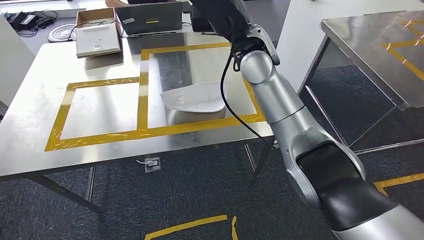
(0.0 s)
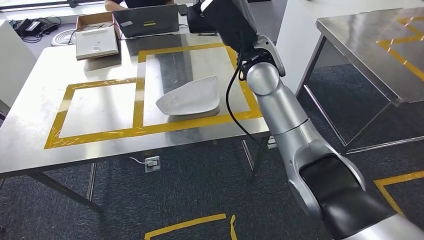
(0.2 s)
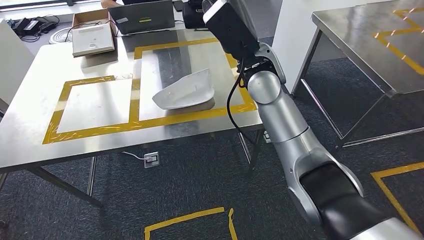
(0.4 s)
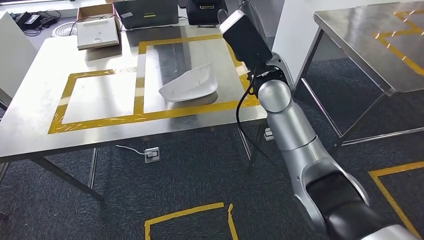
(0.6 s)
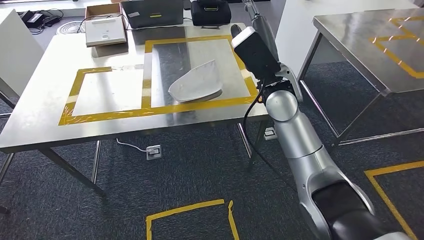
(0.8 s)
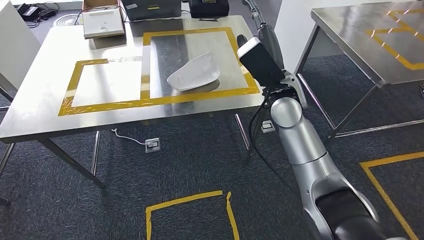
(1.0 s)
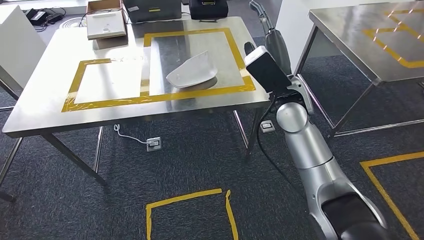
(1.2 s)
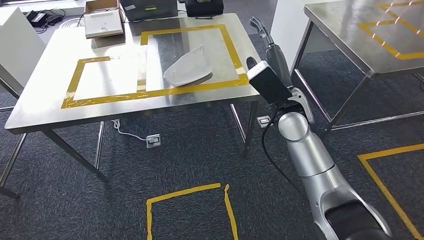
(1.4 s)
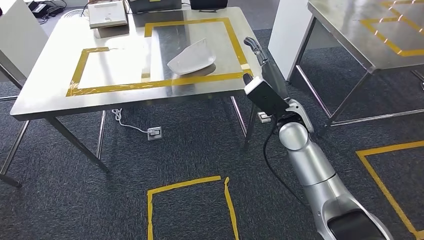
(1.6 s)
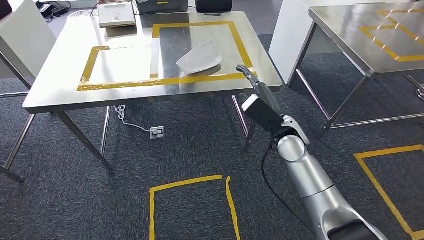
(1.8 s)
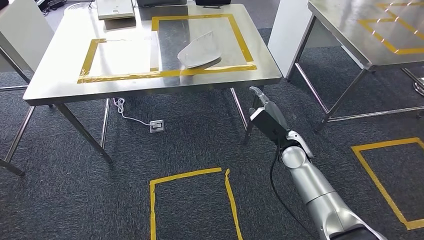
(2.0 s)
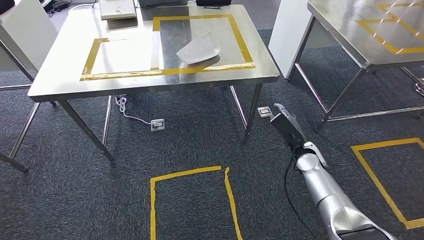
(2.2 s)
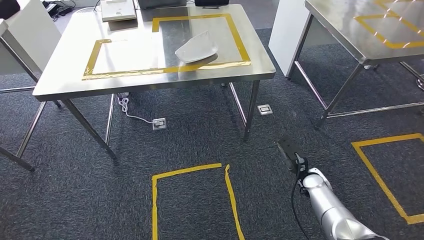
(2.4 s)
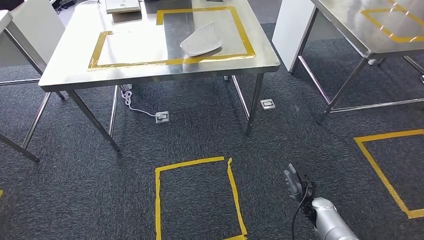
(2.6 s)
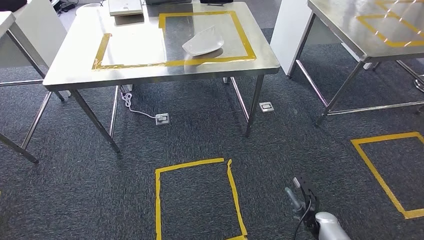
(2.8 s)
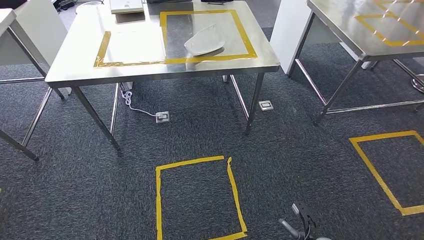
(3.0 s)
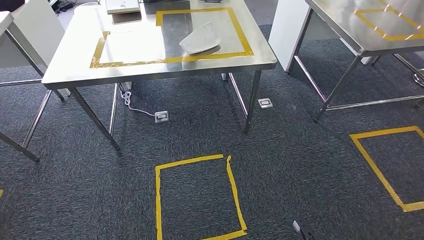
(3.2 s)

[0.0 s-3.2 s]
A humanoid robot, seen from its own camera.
Step, 0.6 to 3.2 s: Return to the initial position at the workbench.

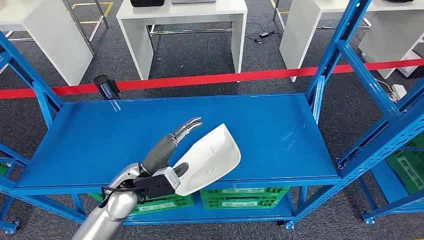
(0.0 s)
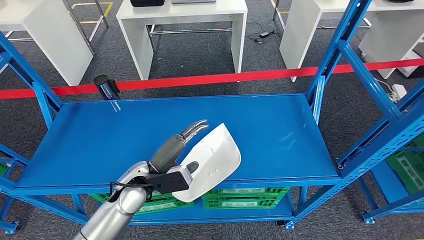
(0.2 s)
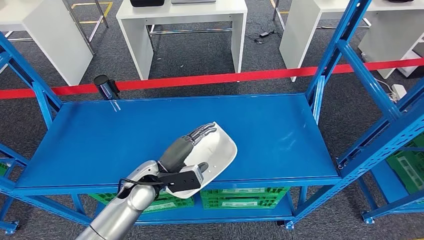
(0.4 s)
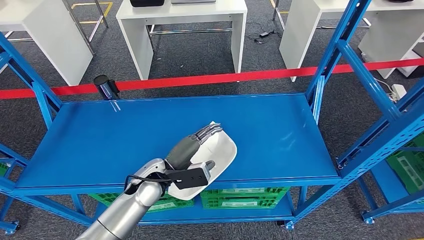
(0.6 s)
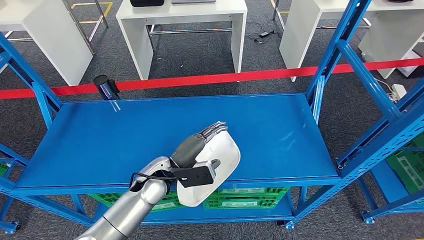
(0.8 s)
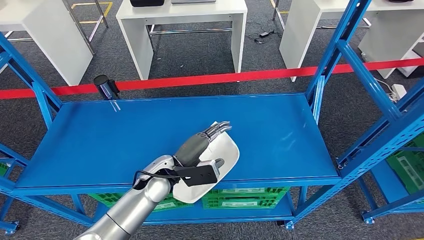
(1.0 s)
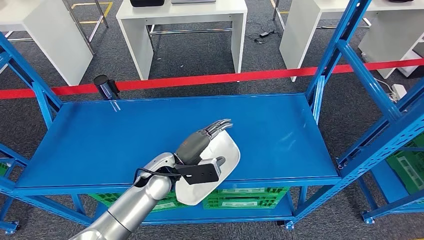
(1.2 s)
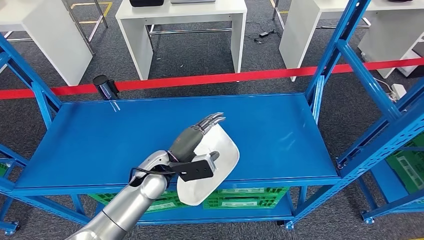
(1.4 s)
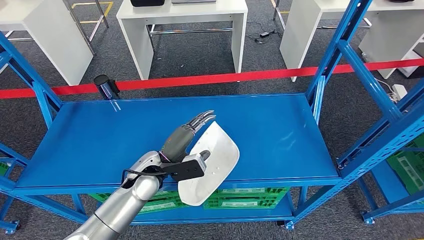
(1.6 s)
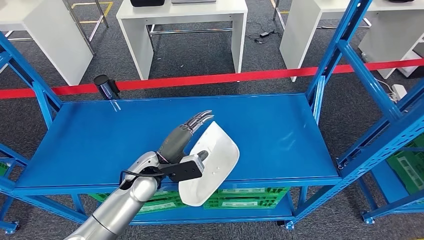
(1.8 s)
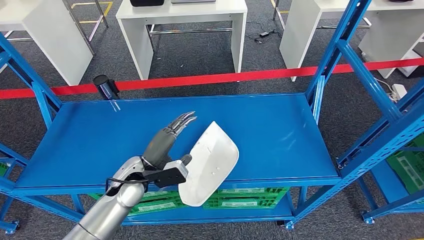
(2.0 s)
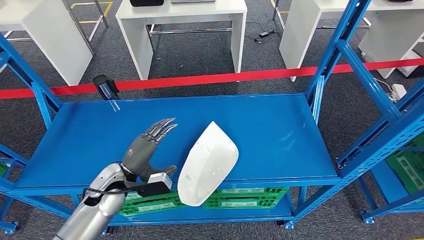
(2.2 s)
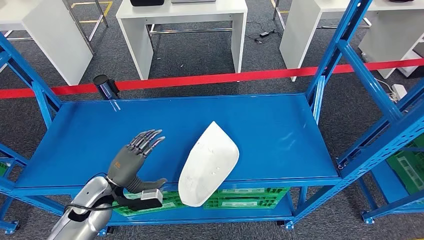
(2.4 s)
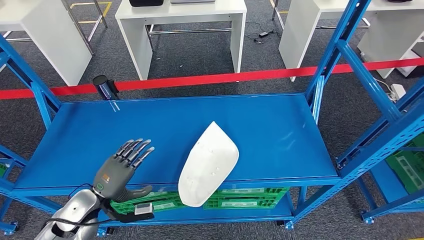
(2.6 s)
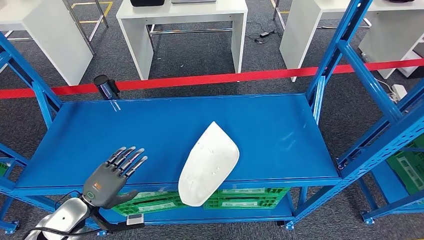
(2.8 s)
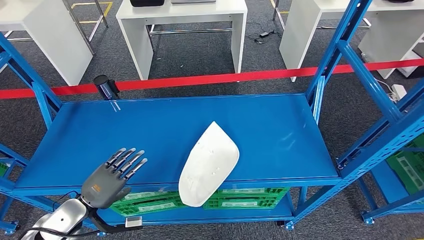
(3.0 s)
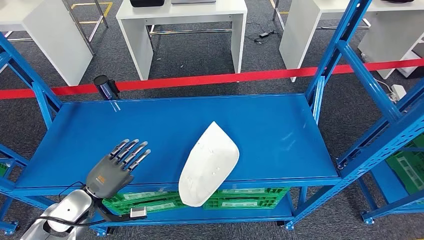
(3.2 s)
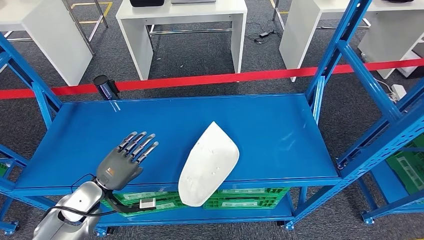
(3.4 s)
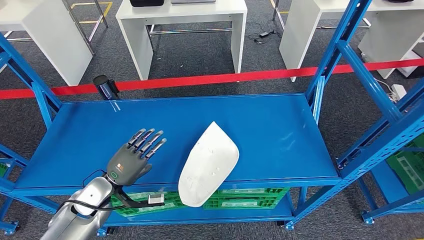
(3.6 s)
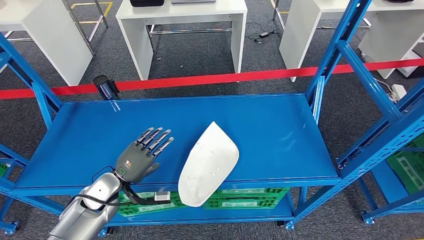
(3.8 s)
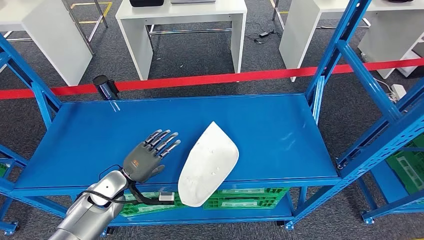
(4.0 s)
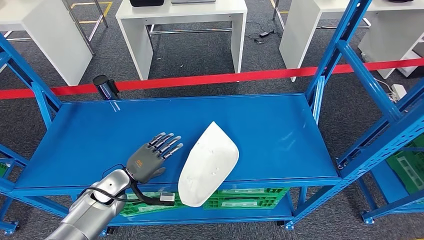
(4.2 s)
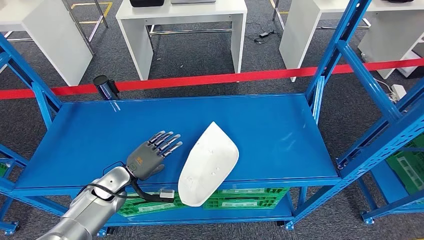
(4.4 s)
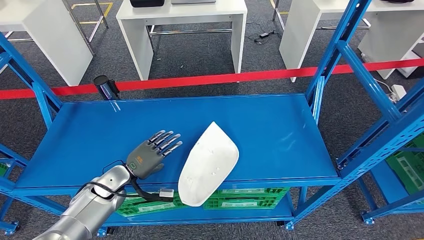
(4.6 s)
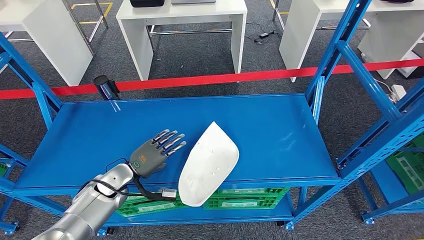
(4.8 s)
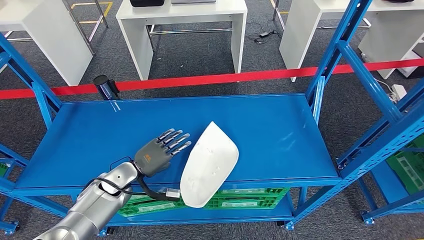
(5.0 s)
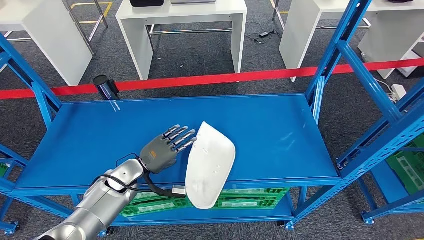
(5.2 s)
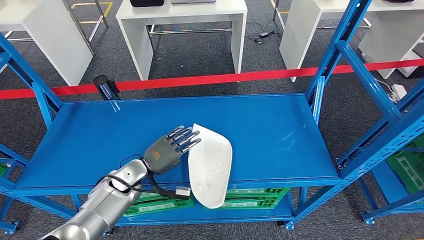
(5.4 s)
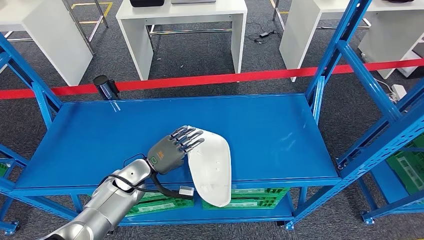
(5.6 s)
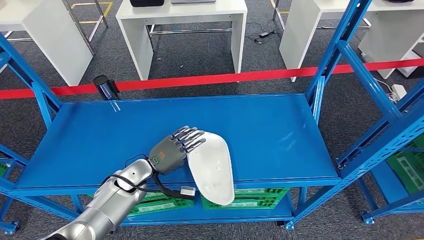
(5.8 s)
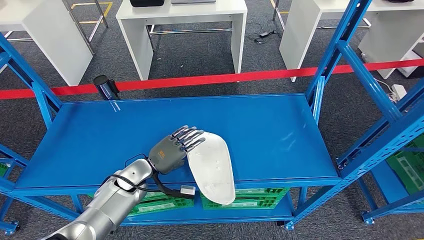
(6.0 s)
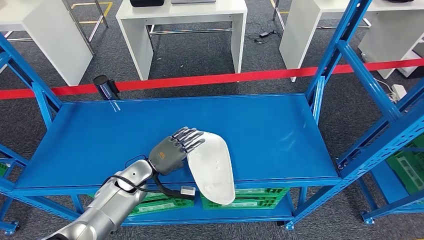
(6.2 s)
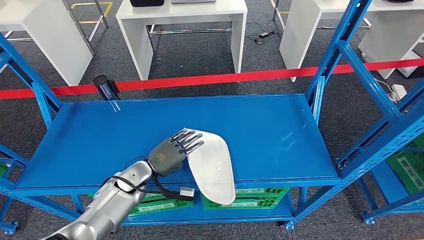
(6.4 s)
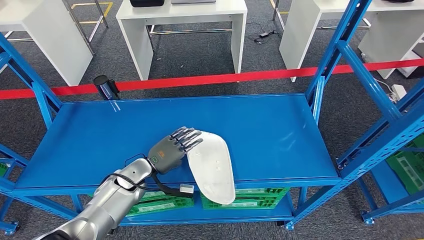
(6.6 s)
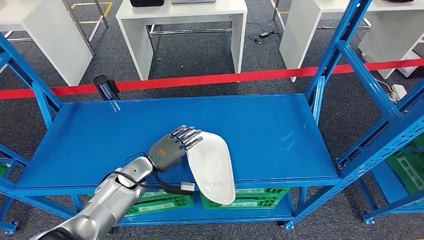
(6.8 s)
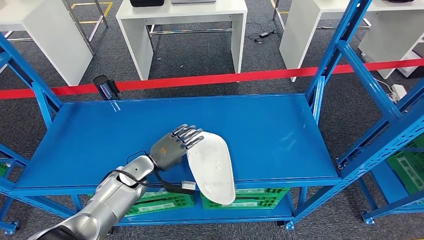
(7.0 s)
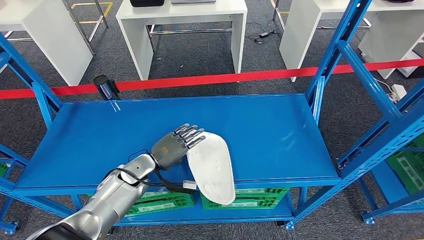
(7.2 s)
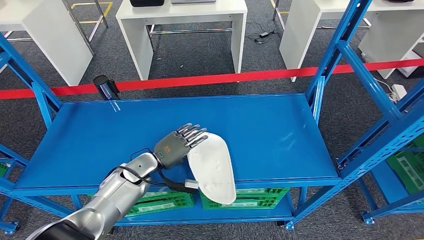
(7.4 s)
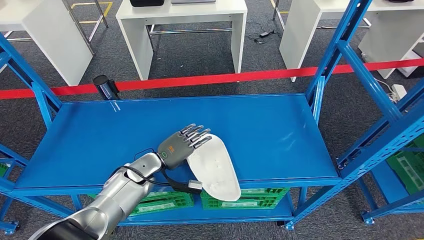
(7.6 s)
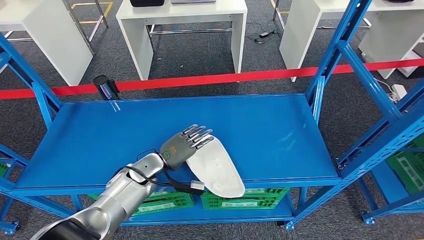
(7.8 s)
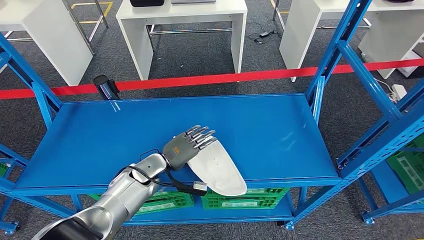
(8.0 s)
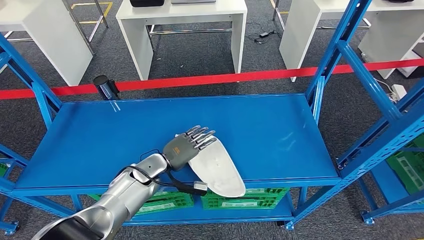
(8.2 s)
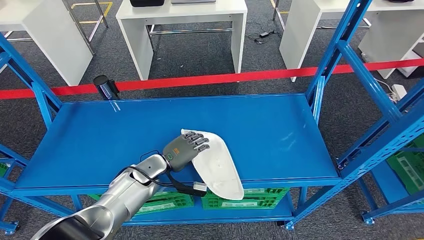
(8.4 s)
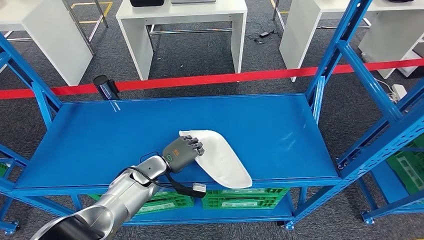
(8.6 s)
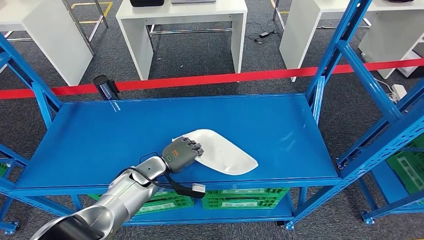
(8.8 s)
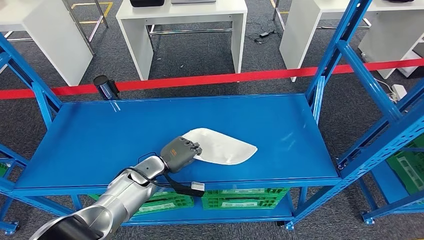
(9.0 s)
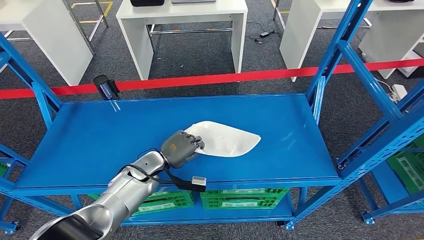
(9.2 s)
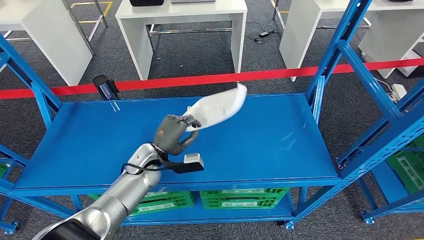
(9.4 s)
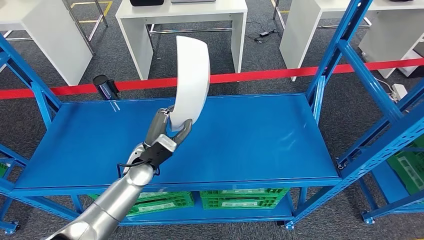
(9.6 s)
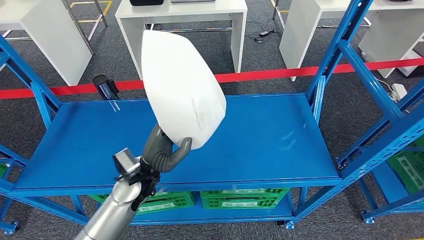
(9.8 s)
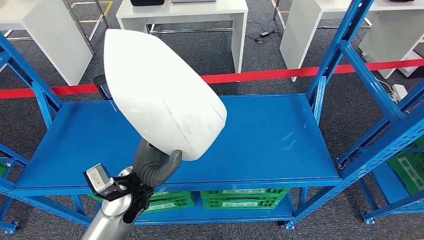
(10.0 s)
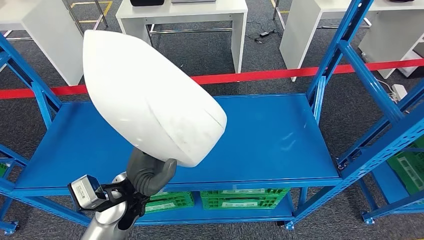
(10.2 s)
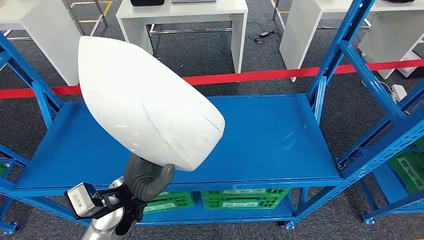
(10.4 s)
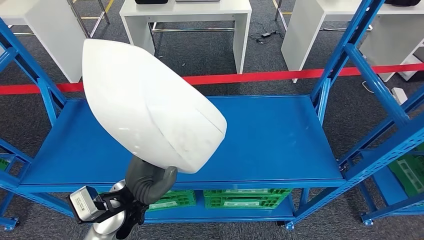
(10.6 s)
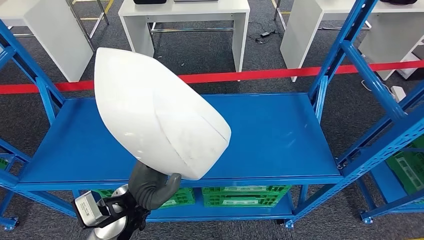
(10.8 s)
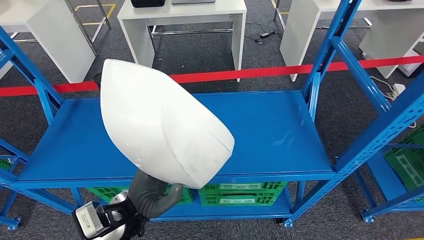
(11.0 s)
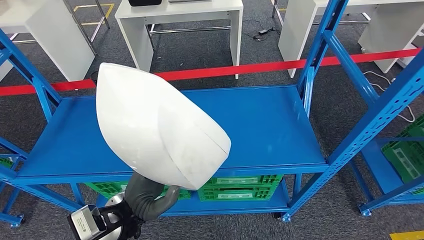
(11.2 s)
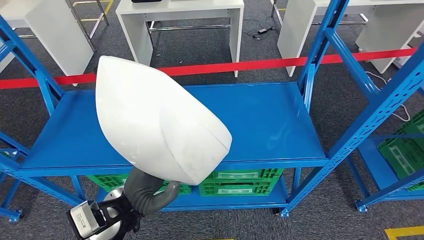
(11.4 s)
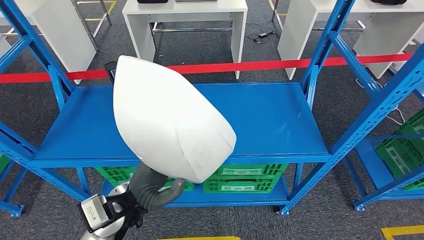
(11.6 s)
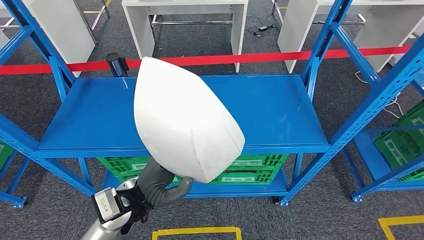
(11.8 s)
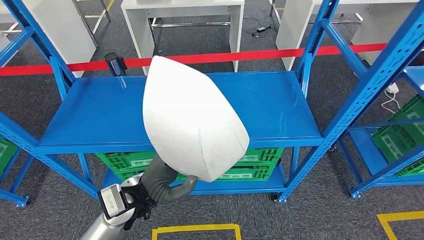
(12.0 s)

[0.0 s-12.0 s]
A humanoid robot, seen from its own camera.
Step, 0.0 to 10.2 s: Pick up the small component from the shelf.
1.6 to 3.0 s: The left hand goes about 25 cm to the left and backward.
3.0 to 4.4 s: The left hand is displaced forward and to the right by some 10 cm.
4.4 to 6.0 s: The left hand moves to the right, approximately 5 cm.
6.0 to 9.0 s: The hands make only small movements.

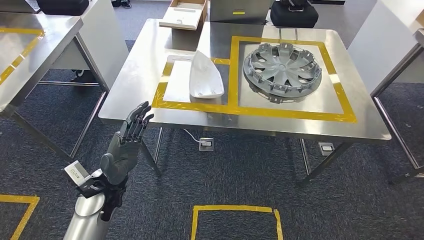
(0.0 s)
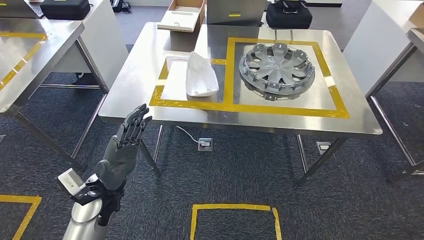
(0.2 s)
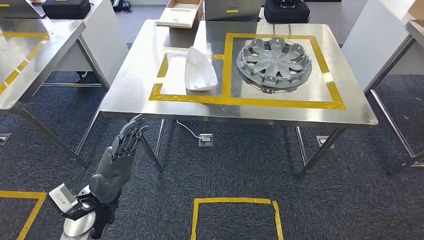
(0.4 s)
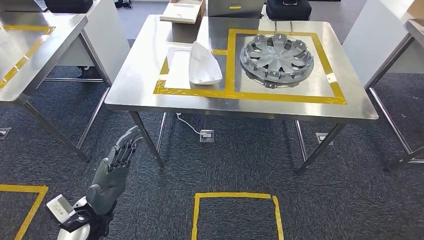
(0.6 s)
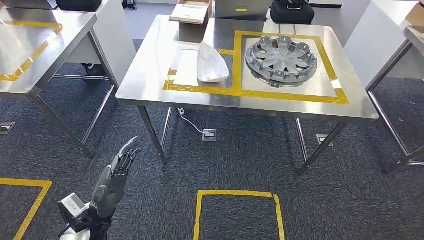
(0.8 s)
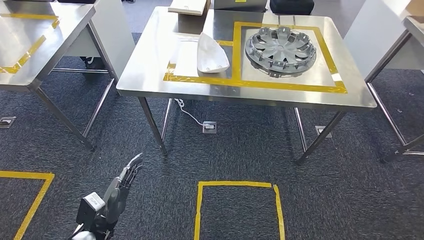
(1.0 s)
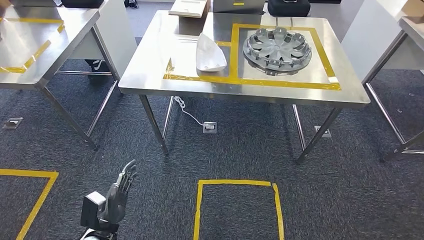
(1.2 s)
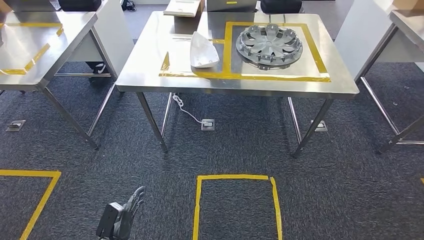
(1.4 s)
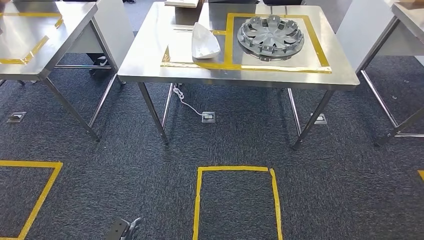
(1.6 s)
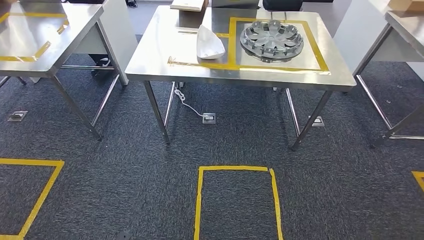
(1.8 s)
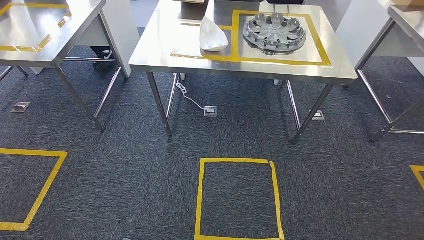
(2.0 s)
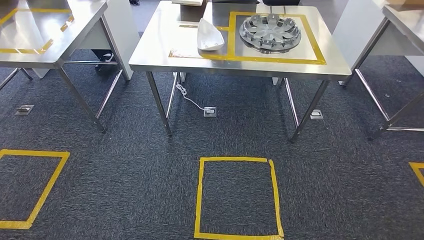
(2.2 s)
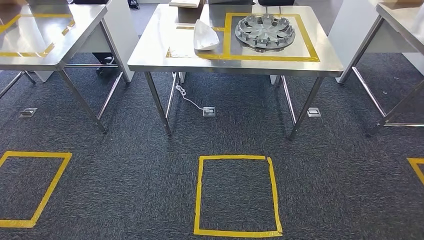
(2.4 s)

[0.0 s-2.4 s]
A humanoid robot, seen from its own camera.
Step, 0.0 to 2.4 s: Return to the initial position at the workbench.
